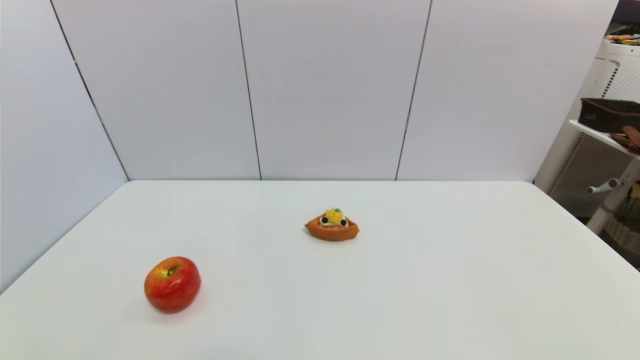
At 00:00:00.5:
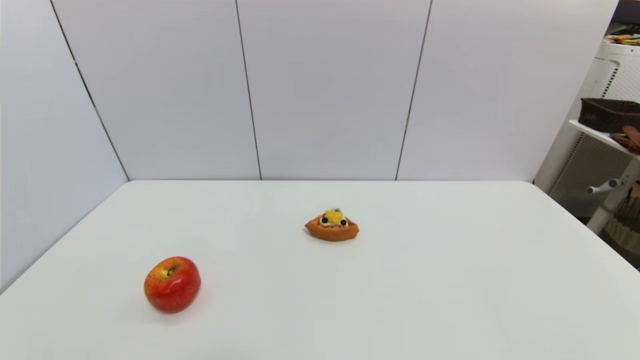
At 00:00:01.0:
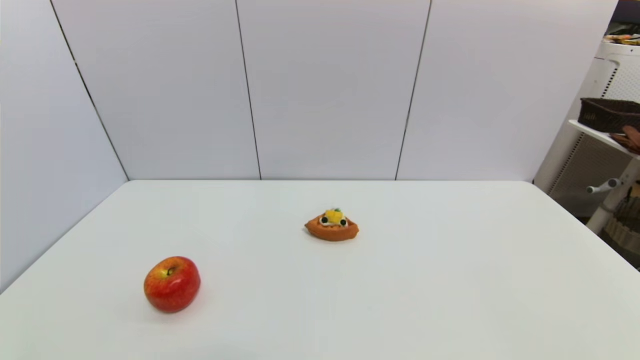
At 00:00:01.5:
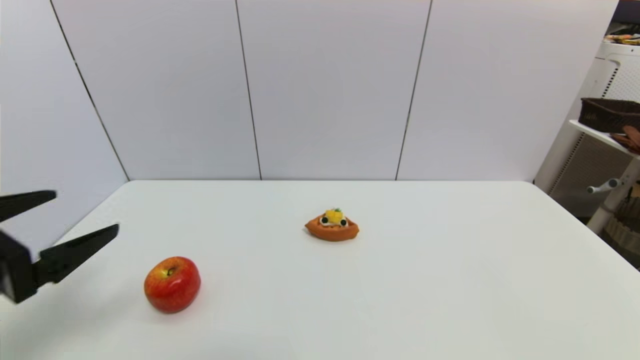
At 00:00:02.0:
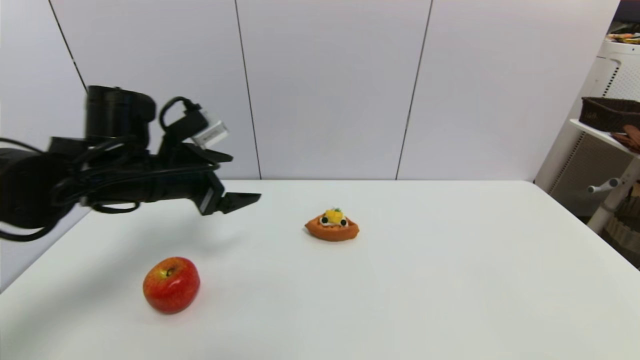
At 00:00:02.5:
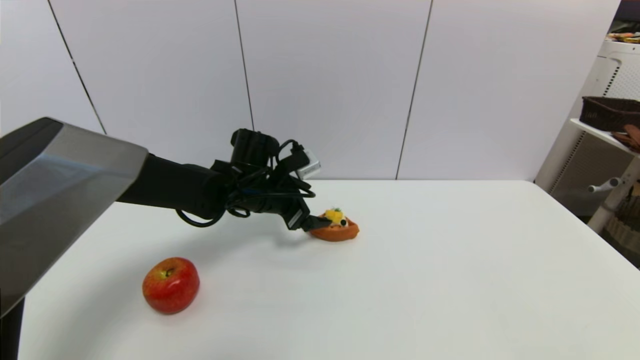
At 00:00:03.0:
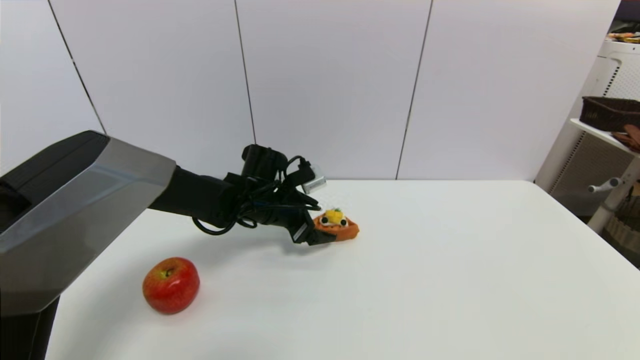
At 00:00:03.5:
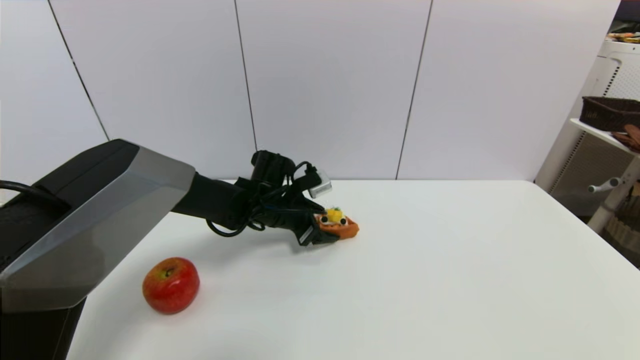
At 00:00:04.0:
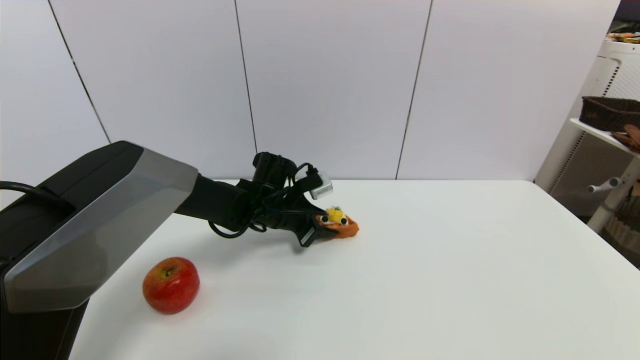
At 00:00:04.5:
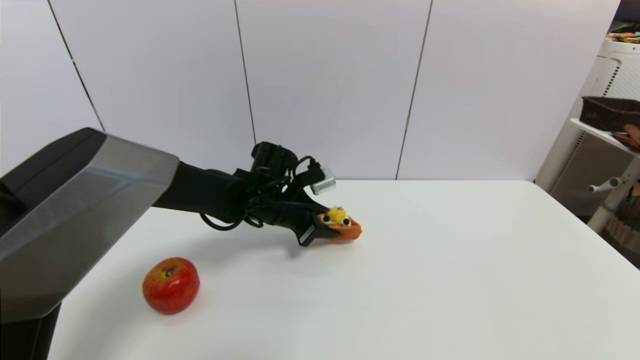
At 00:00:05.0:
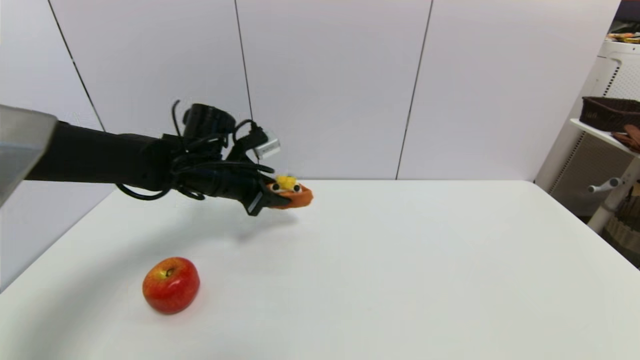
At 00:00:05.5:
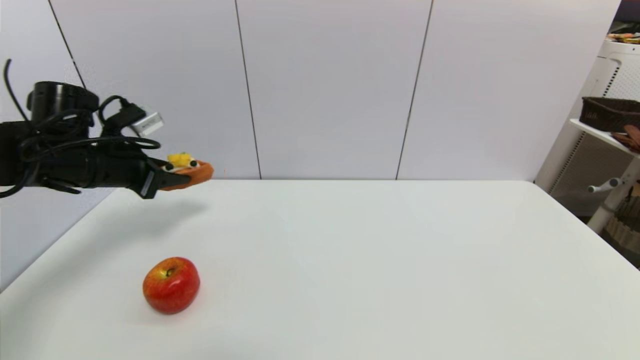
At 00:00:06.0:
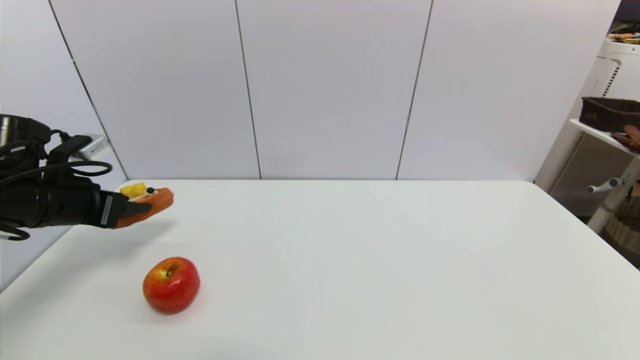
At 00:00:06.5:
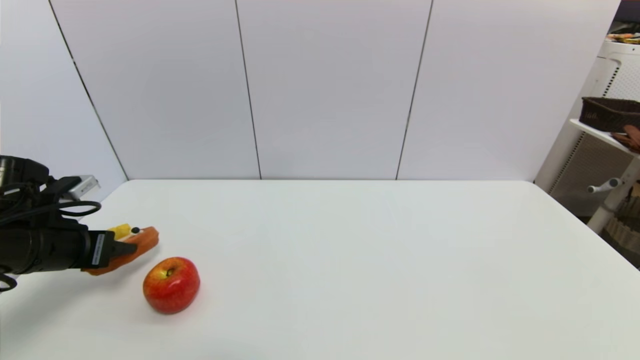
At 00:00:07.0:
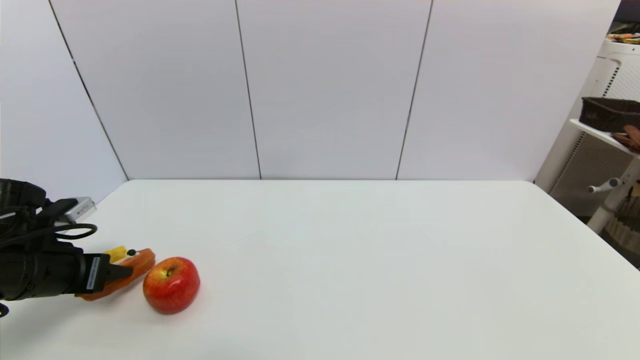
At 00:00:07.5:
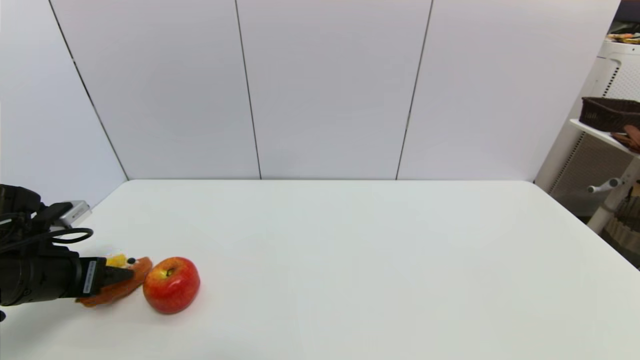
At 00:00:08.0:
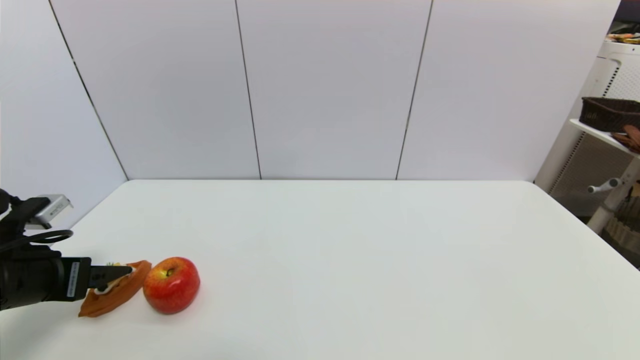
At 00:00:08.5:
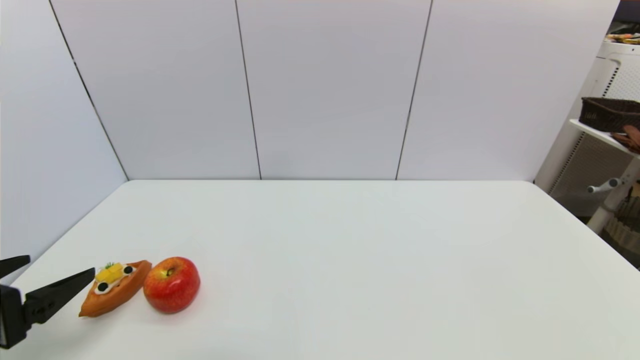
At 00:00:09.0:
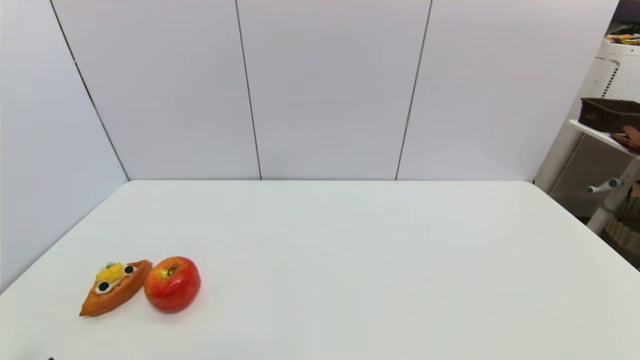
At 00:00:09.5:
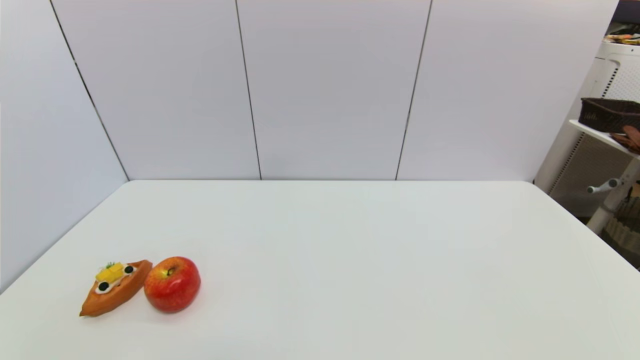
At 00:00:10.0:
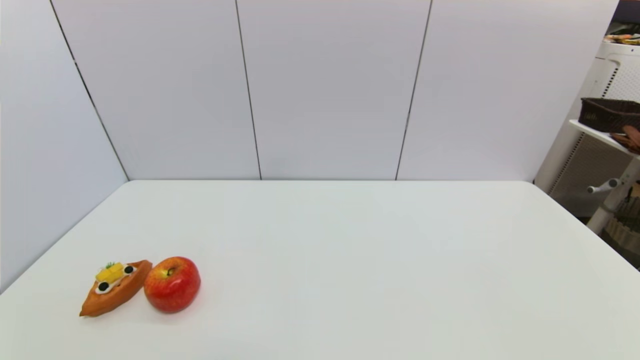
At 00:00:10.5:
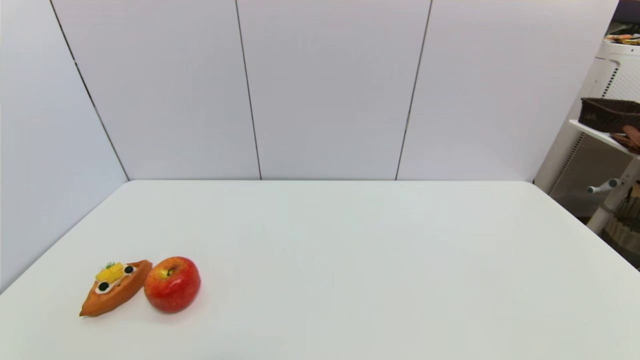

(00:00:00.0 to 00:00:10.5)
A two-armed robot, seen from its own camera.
Step, 00:00:01.5 - 00:00:04.0: Grasp the pizza with left gripper.
Step, 00:00:04.5 - 00:00:07.5: Place the pizza on the table with left gripper.
00:00:00.0 - 00:00:02.0: The left gripper shifts roughly 35 cm forward and upward.
00:00:02.0 - 00:00:04.0: The left gripper is displaced downward, to the right and forward by roughly 20 cm, and closes its fingers.
00:00:04.0 - 00:00:06.5: The left gripper is displaced to the left and backward by about 30 cm.
00:00:06.5 - 00:00:08.5: The left gripper travels backward by roughly 15 cm, and opens up.
00:00:08.5 - 00:00:10.5: The left gripper goes roughly 15 cm downward and backward.
